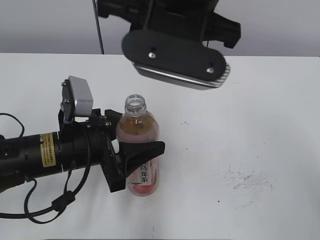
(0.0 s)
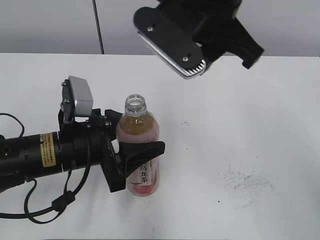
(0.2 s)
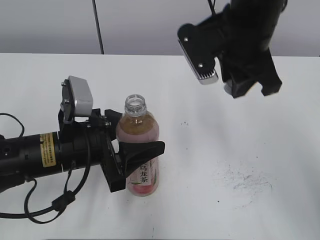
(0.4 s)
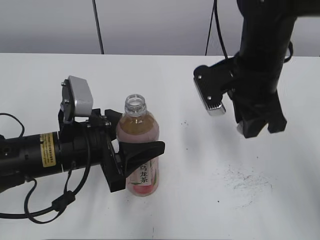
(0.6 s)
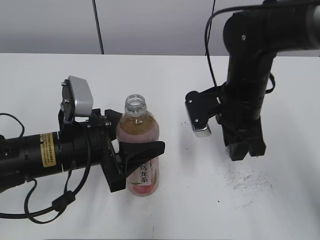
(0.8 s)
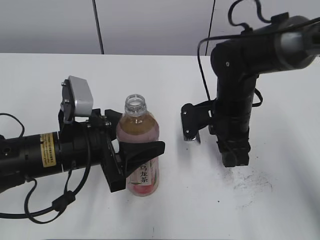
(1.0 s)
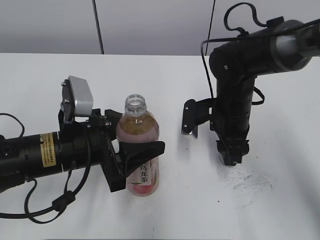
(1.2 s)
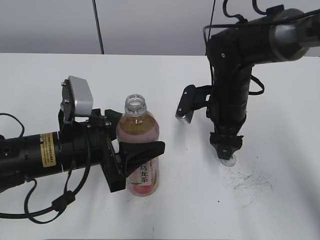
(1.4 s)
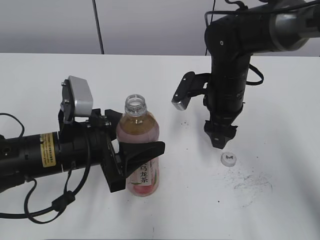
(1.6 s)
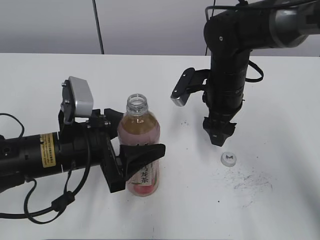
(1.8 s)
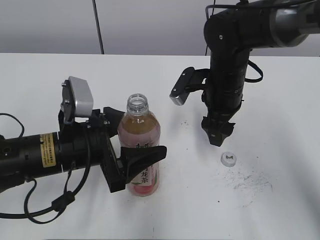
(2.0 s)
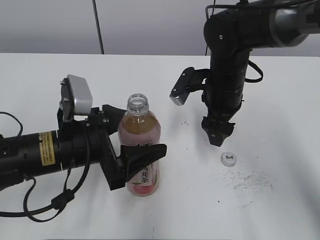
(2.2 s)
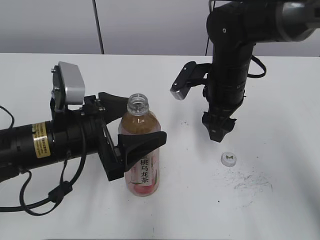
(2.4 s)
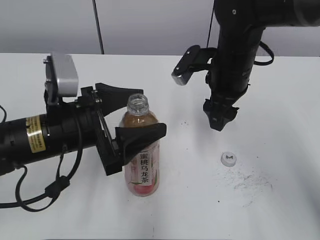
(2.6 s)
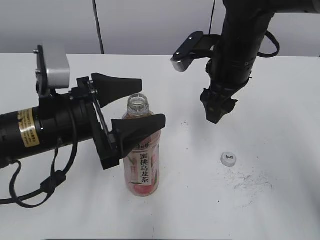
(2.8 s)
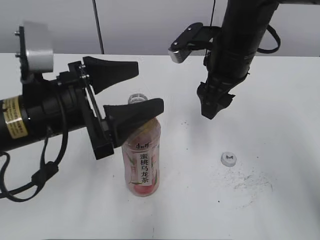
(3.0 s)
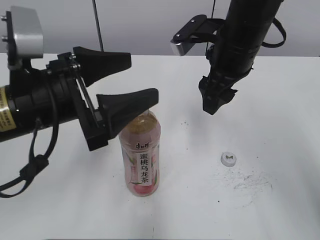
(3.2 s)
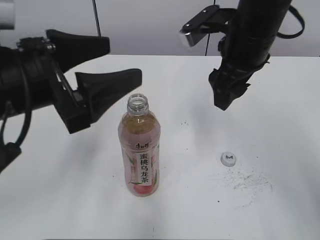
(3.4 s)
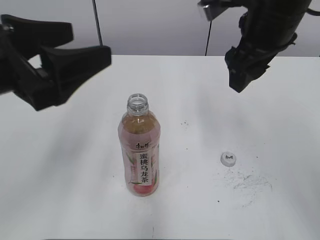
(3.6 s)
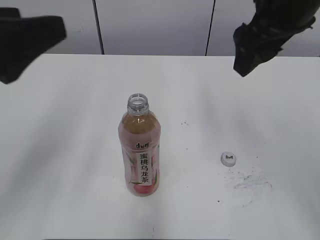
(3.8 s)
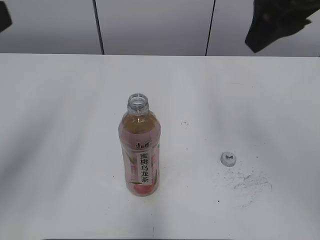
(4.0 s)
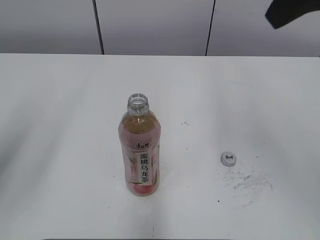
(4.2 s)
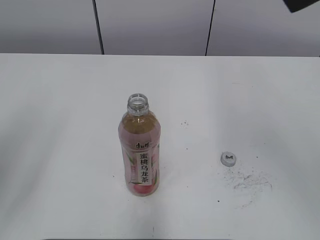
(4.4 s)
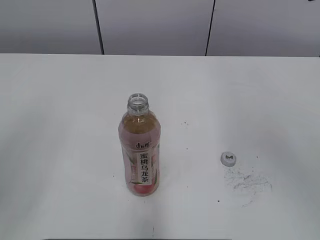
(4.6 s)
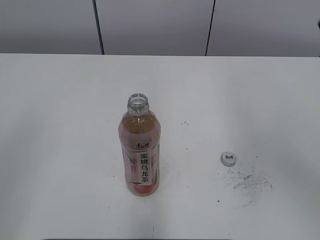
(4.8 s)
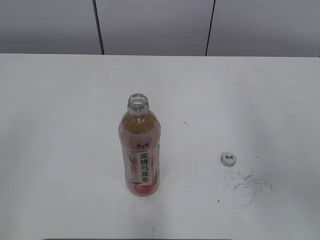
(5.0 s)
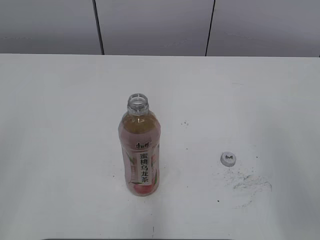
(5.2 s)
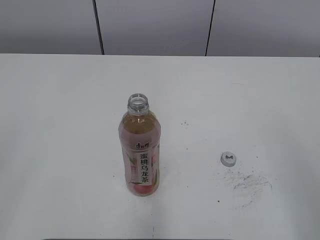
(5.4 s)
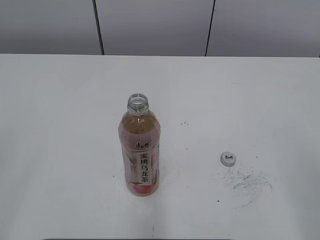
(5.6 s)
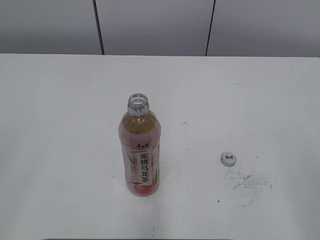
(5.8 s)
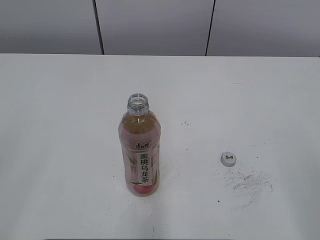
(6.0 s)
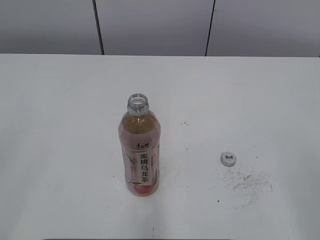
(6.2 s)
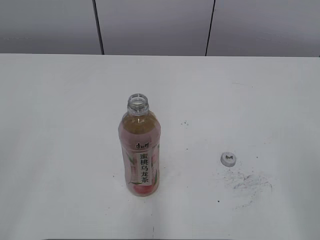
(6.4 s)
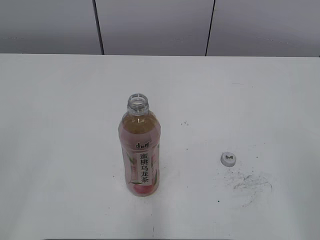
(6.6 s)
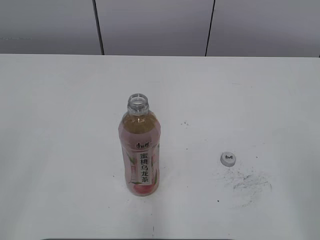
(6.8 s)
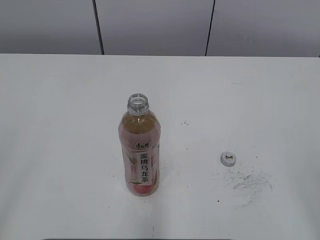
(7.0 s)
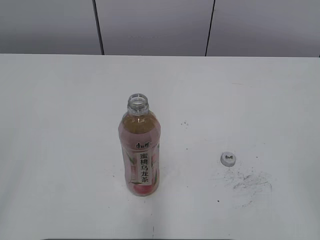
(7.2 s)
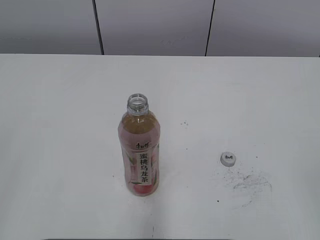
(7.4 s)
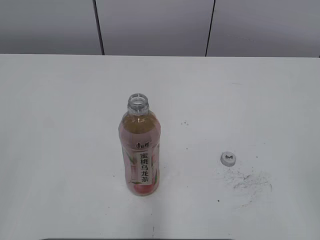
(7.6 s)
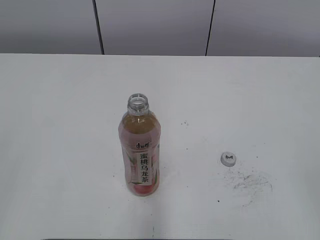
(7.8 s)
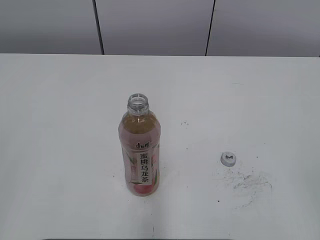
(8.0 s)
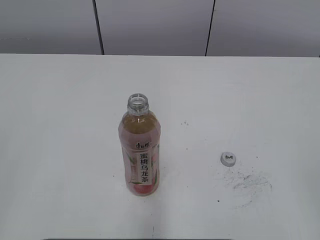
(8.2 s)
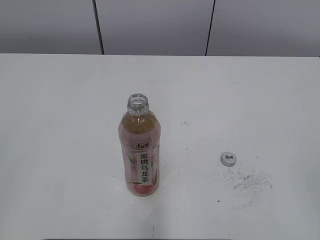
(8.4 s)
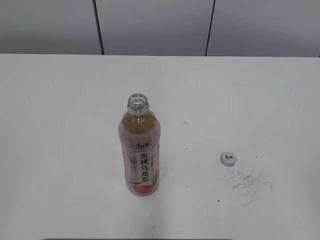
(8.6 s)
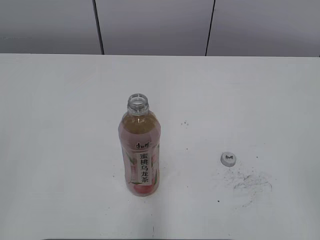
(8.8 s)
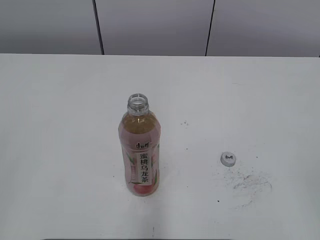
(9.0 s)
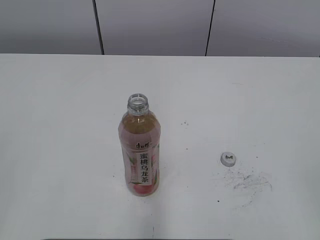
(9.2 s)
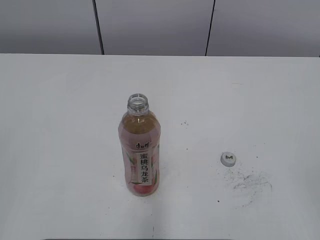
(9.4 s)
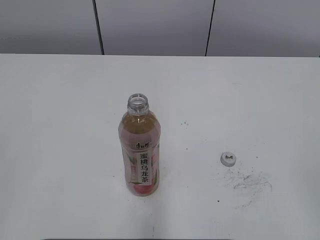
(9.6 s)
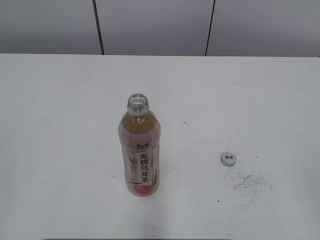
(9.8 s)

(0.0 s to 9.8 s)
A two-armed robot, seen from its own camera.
Step, 0.0 s - 1.2 s: Place the bottle cap on the right.
0.0 s - 1.4 s: The right gripper goes roughly 25 cm downward, to the right and forward, and opens up.
1.4 s - 2.8 s: The right gripper moves upward, approximately 10 cm, while the left gripper opens.
2.8 s - 4.2 s: The left gripper goes roughly 20 cm upward, to the left and backward. The right gripper goes about 20 cm upward and backward.
4.2 s - 5.6 s: The right gripper goes roughly 30 cm backward, to the right and downward.
8.4 s - 9.8 s: The two grippers keep their place.
